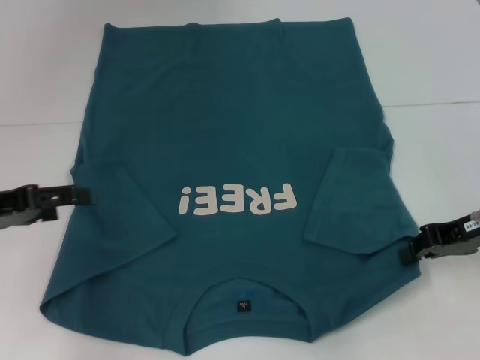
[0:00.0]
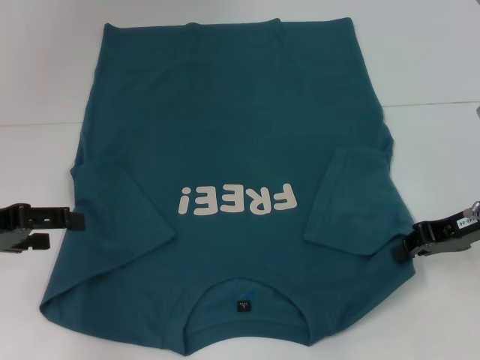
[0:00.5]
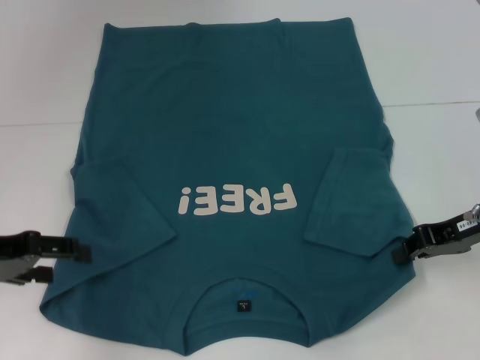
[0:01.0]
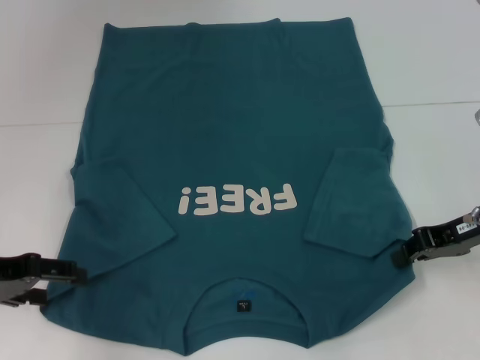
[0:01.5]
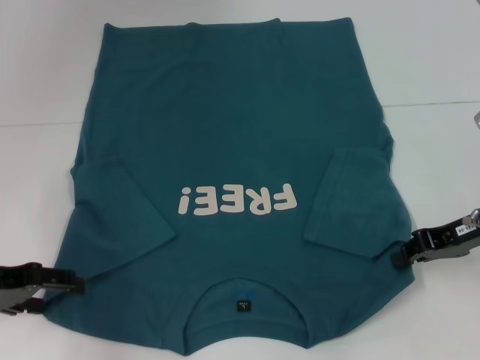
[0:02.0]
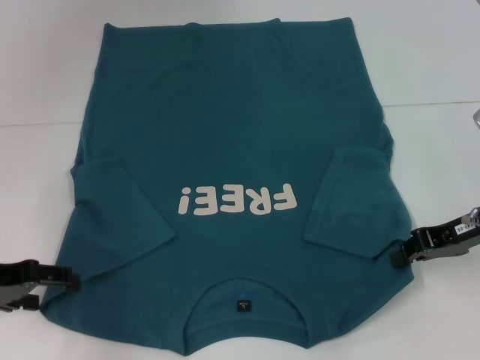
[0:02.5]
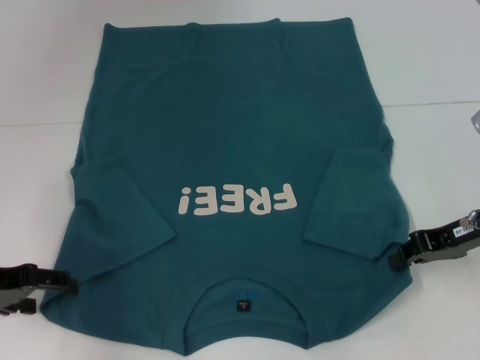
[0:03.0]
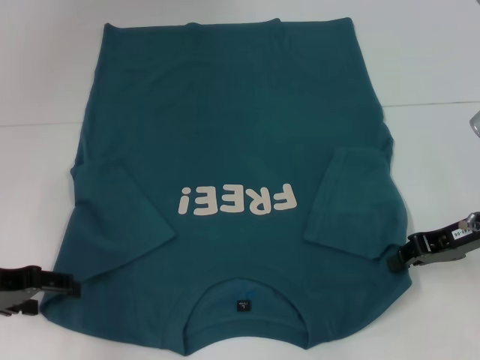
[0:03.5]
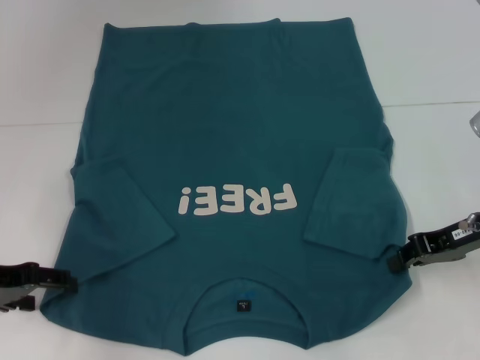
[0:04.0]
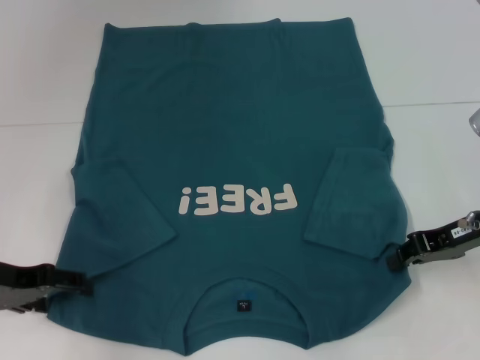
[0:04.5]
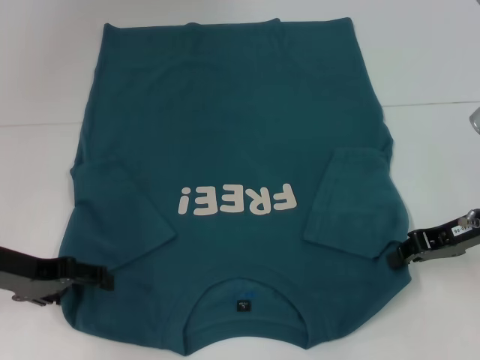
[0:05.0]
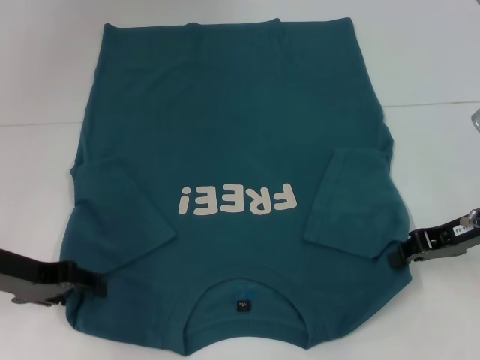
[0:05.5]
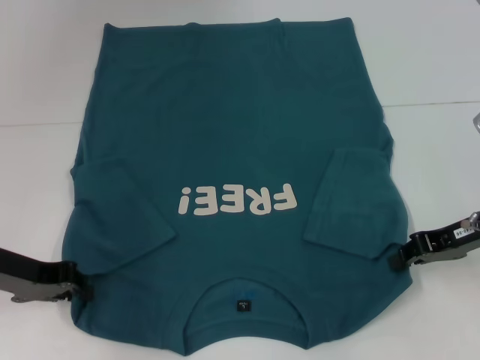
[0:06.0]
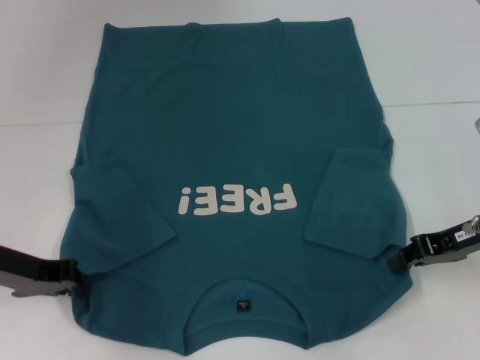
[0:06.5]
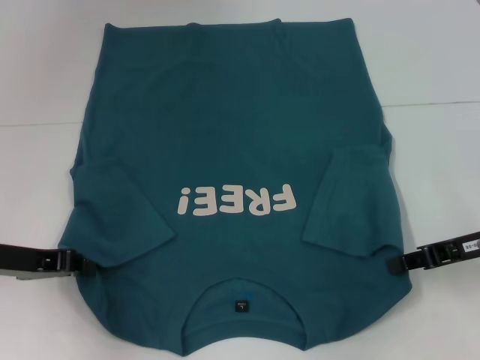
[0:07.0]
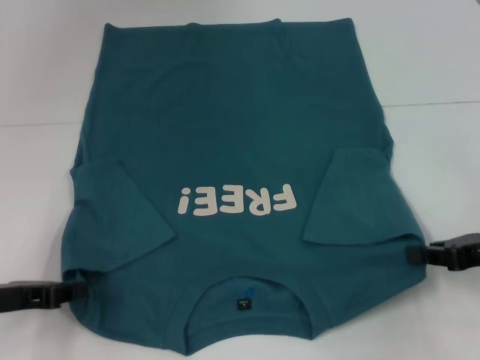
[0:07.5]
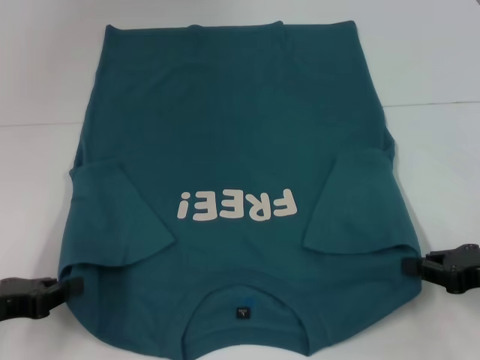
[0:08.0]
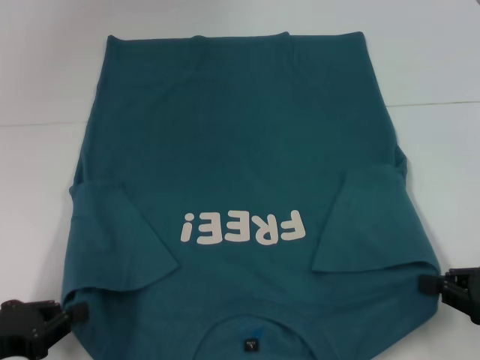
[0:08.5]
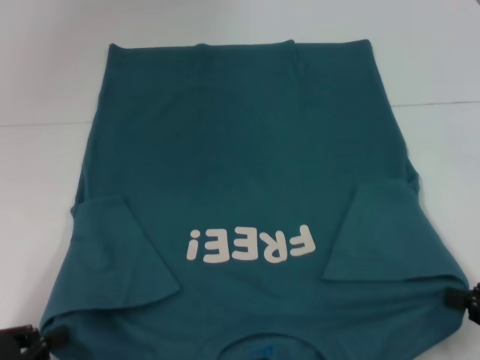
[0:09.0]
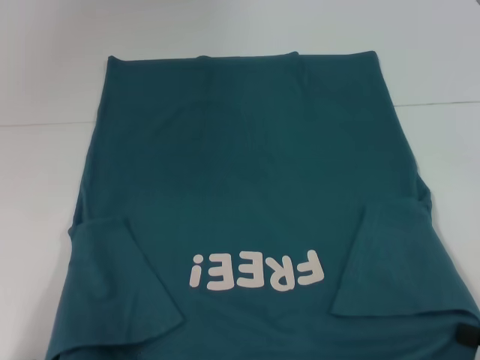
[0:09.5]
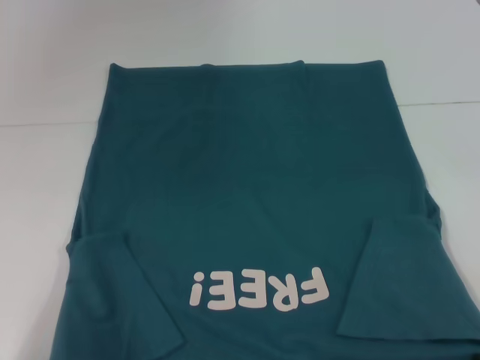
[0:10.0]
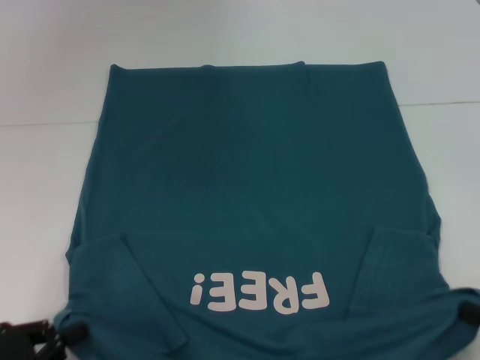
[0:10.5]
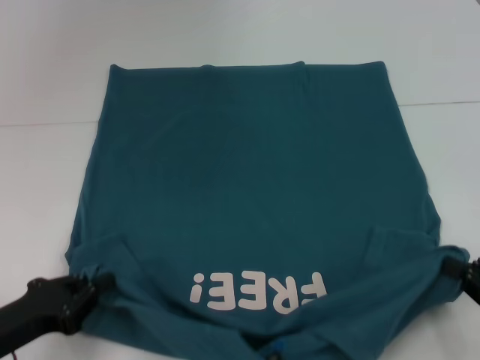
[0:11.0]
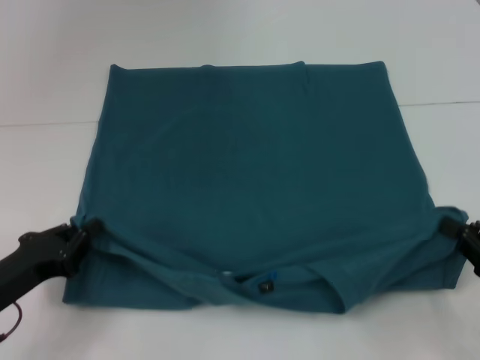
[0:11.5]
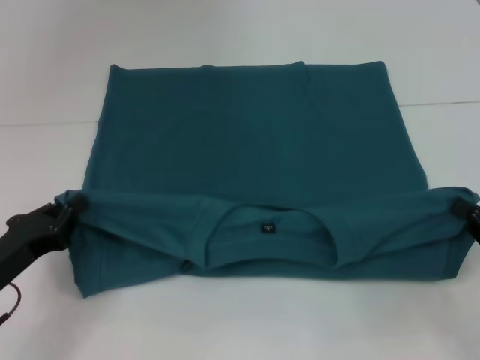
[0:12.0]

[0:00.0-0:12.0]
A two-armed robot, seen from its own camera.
Step, 0:00.0 to 0:06.5: Grab the bottom left corner with your left hand.
0:02.0 to 0:04.0: Both grippers stay about where they are.
0:04.0 to 0:06.0: The left gripper closes up.
0:06.0 to 0:08.0: The grippers both shift backward by roughly 5 cm.
0:08.0 to 0:10.0: The grippers both shift backward by approximately 15 cm.
0:10.0 to 0:12.0: Both grippers move forward, some 10 cm.

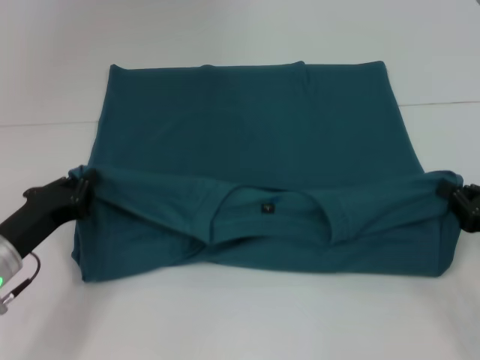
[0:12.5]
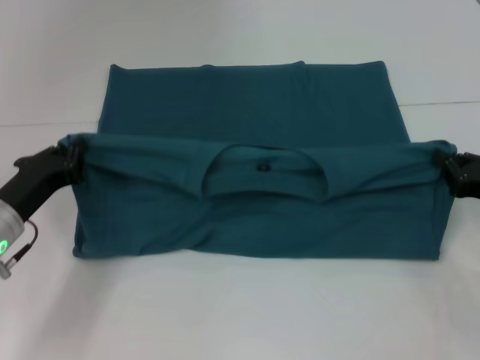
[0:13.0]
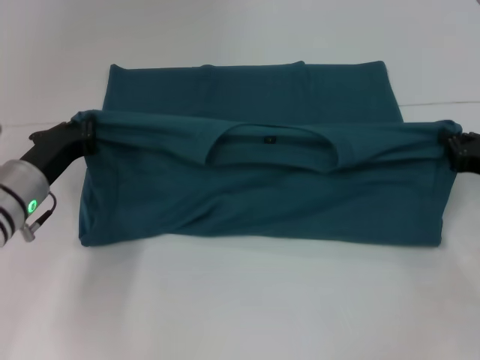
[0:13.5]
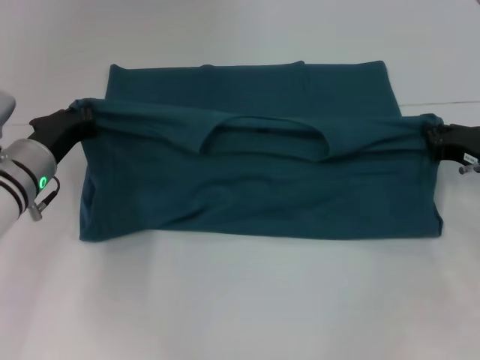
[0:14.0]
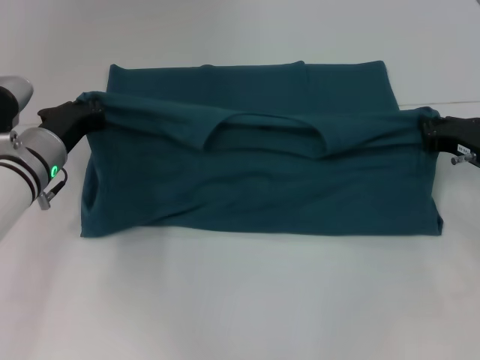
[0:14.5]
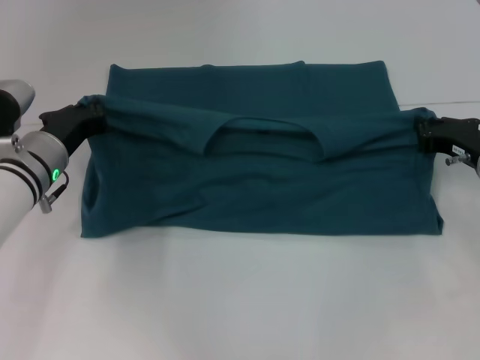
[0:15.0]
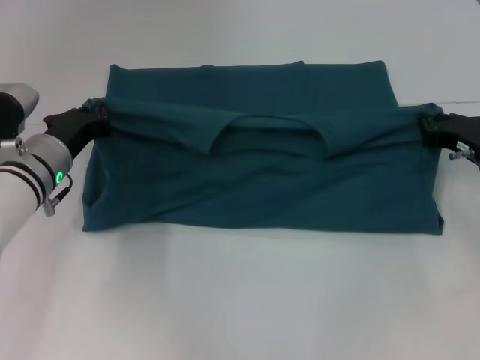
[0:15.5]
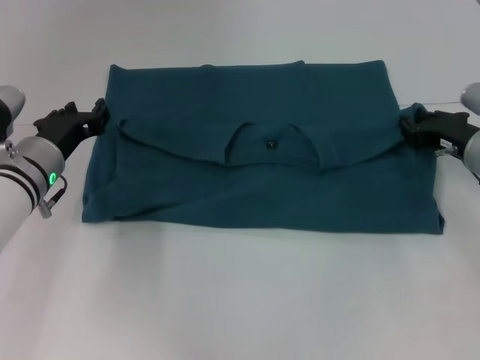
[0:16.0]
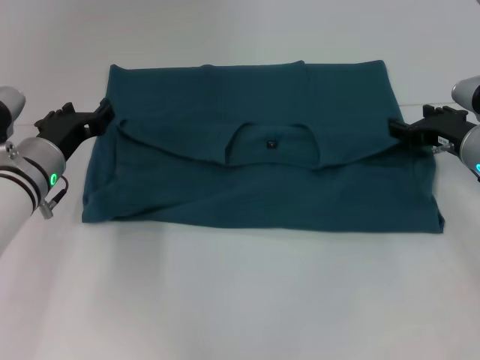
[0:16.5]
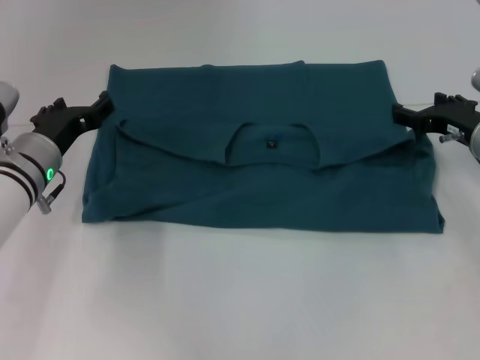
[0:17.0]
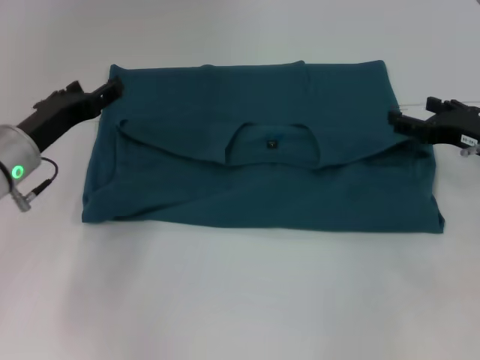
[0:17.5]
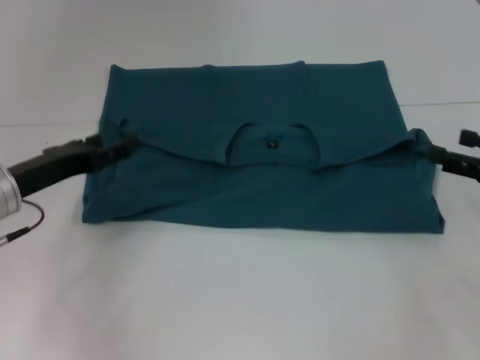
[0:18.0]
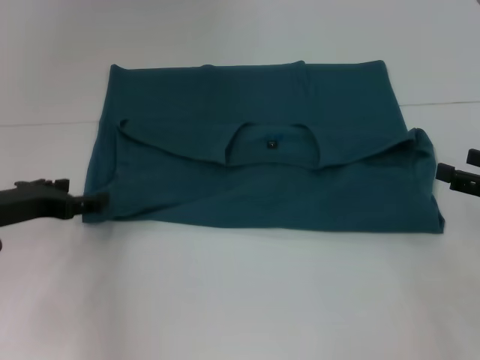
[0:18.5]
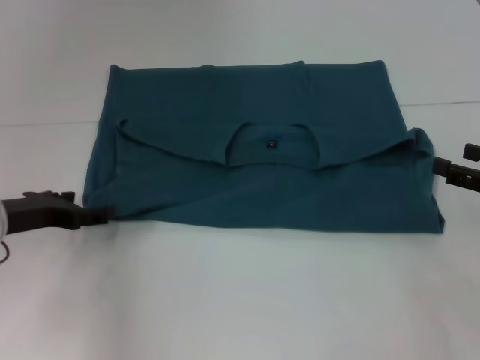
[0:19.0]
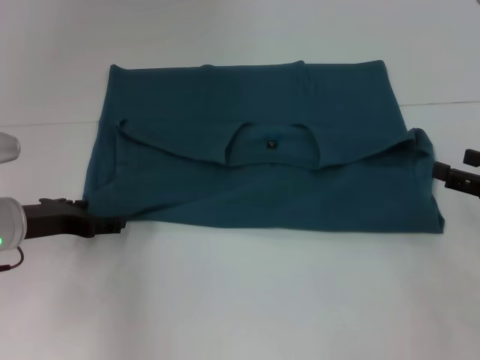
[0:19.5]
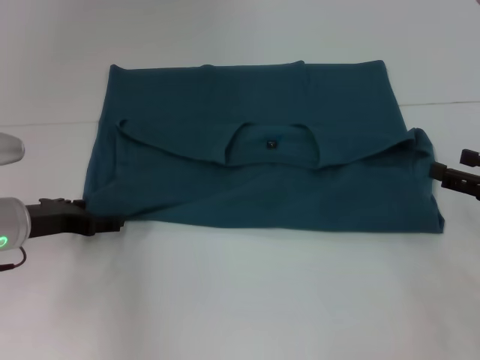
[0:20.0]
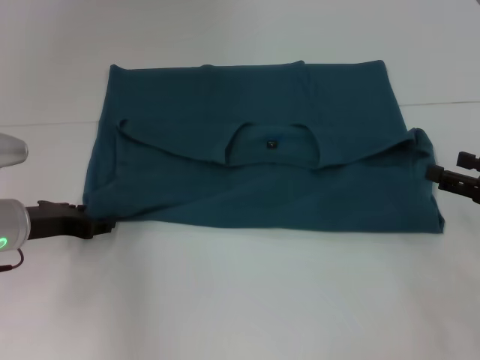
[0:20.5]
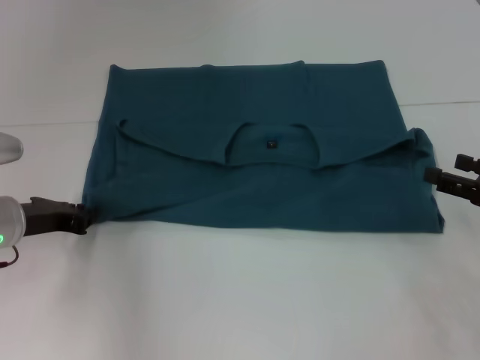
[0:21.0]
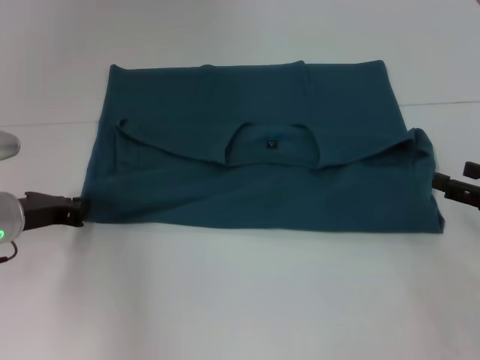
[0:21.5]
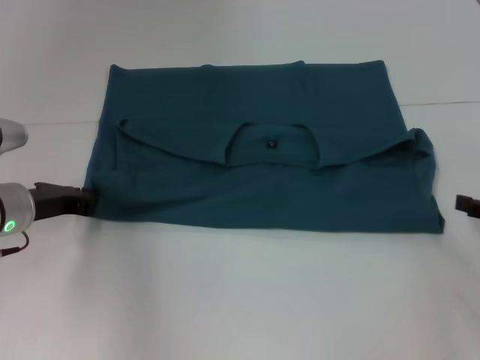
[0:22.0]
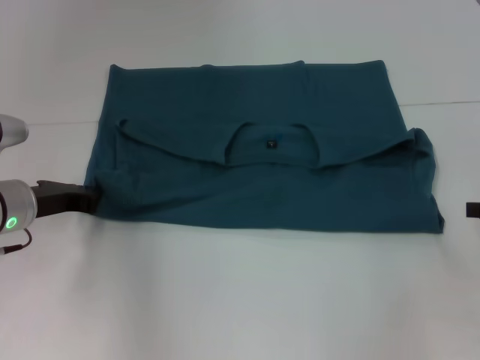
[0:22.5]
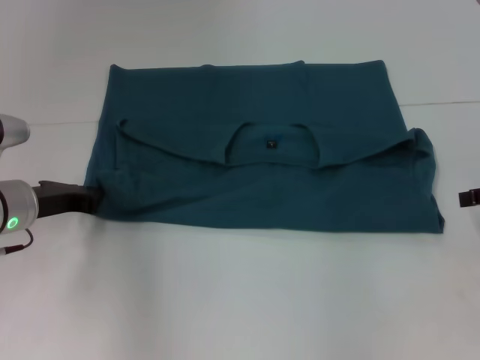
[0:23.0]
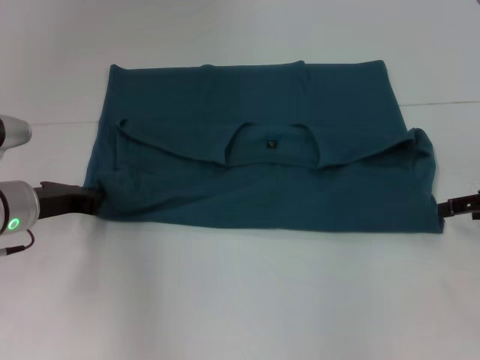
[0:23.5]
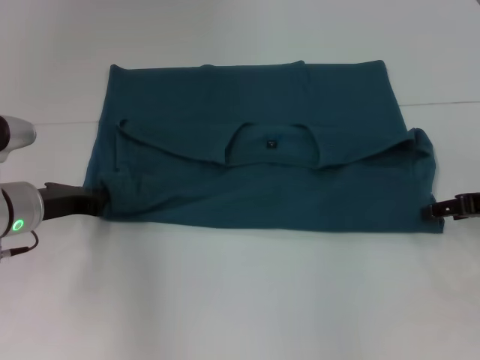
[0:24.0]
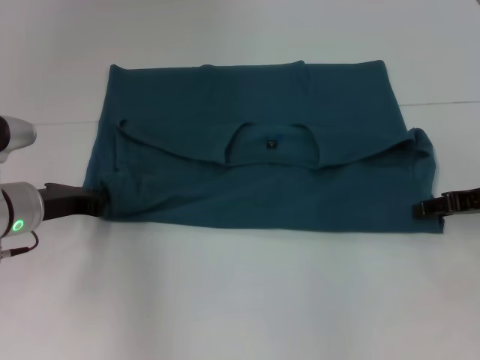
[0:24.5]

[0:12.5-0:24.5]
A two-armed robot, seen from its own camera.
Step, 0:12.5 to 0:16.5: Fold the clothes to the left.
Step, 0:12.5 to 0:16.5: Fold the clothes to the right.
0:12.5 to 0:14.5: The right gripper shifts approximately 10 cm forward, while the left gripper shifts approximately 10 cm forward and to the right.
0:14.5 to 0:16.5: The left gripper opens its fingers, while the right gripper opens up.
0:16.5 to 0:18.5: The right gripper travels backward and to the right by some 15 cm, and opens. Meanwhile the left gripper travels to the left and backward by approximately 10 cm.
0:18.5 to 0:20.5: There are only small adjustments of the grippers.
0:20.5 to 0:22.5: The left gripper closes.
0:22.5 to 0:24.5: The right gripper travels forward and to the left by approximately 10 cm.

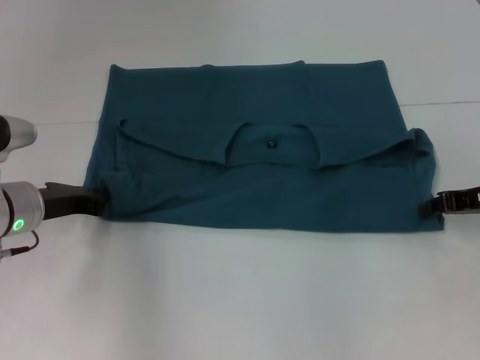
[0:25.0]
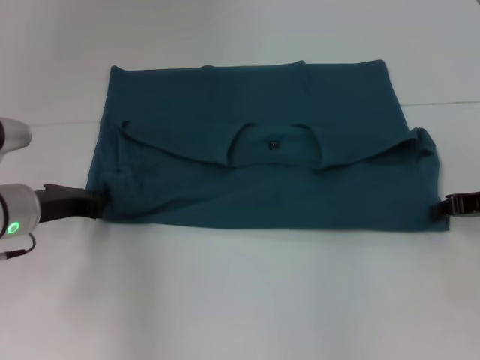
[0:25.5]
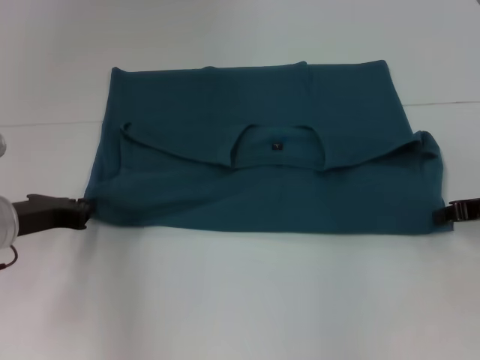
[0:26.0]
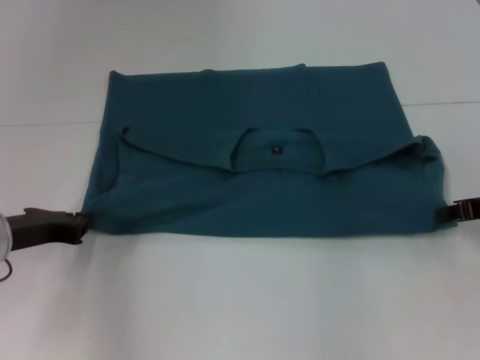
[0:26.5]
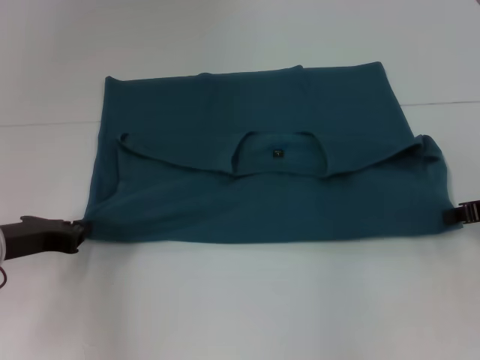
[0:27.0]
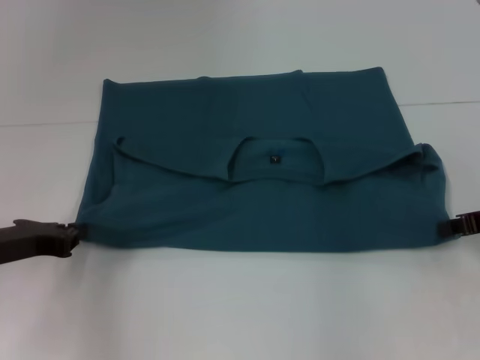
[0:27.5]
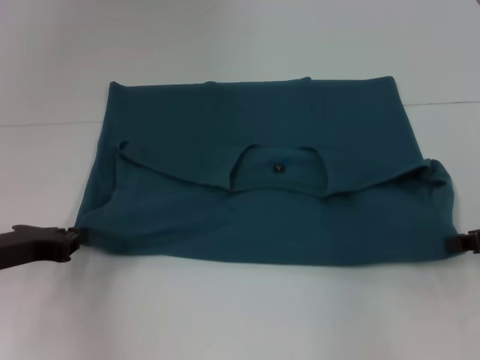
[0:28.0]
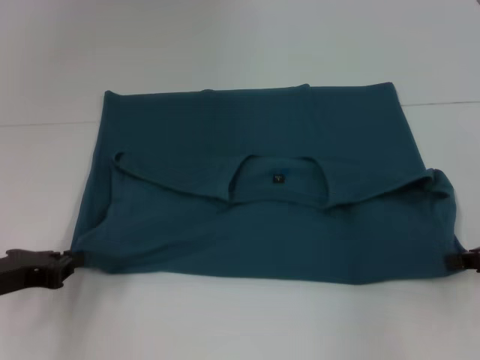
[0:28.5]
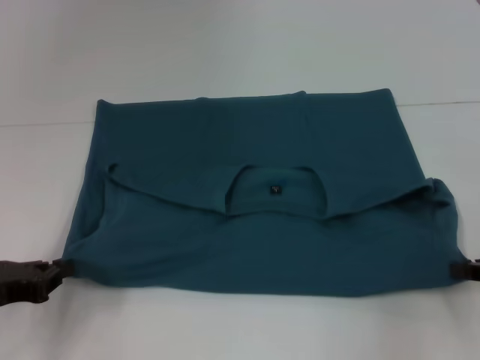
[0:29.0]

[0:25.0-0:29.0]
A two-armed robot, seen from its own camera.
0:25.0 to 0:27.0: The left gripper shifts by roughly 5 cm. Meanwhile the right gripper closes.
0:27.0 to 0:29.0: The two grippers go approximately 5 cm backward.
